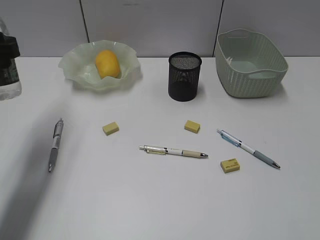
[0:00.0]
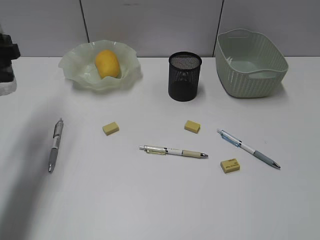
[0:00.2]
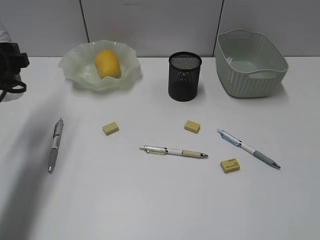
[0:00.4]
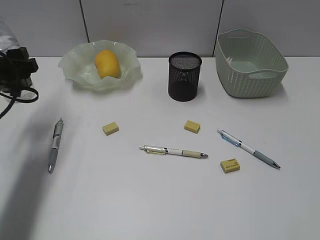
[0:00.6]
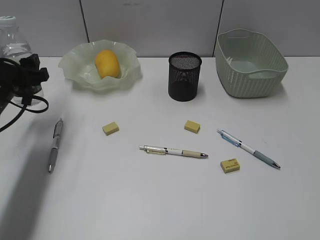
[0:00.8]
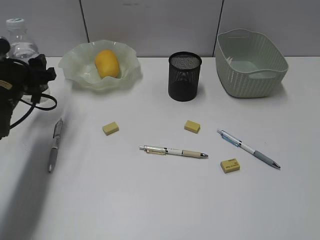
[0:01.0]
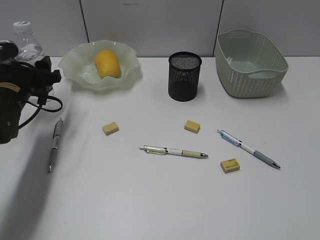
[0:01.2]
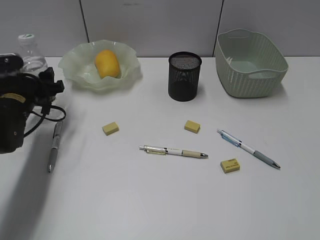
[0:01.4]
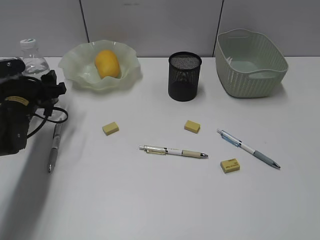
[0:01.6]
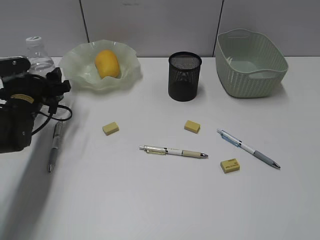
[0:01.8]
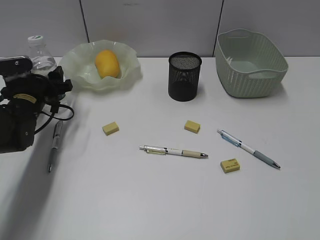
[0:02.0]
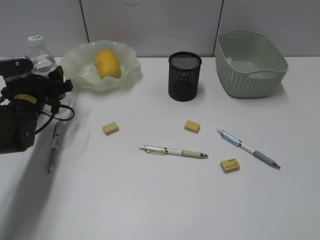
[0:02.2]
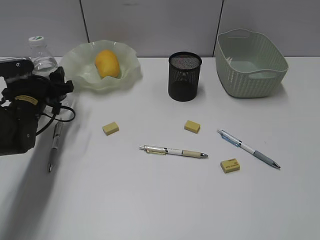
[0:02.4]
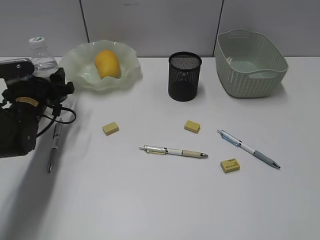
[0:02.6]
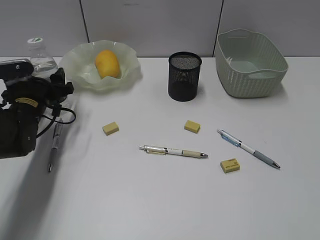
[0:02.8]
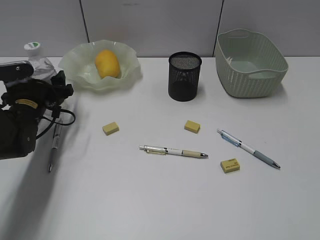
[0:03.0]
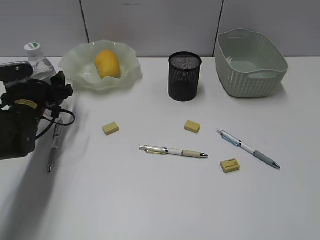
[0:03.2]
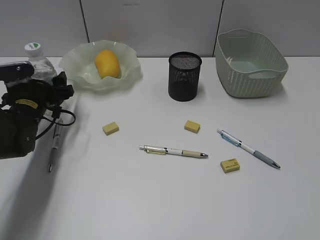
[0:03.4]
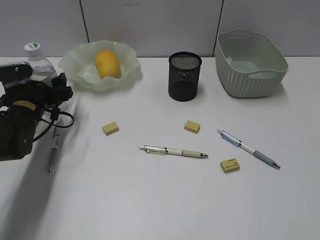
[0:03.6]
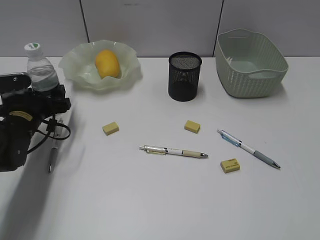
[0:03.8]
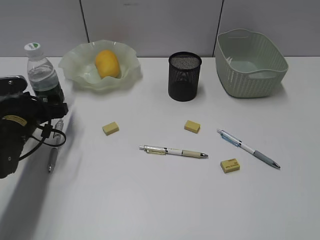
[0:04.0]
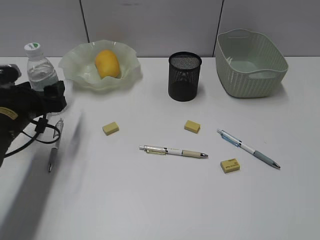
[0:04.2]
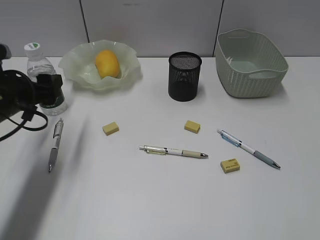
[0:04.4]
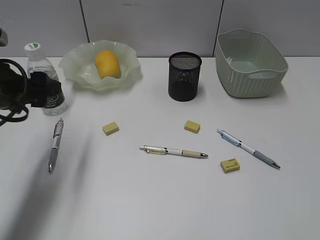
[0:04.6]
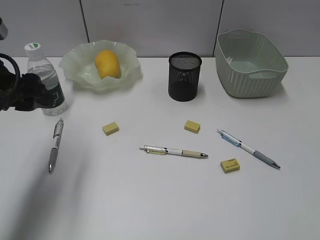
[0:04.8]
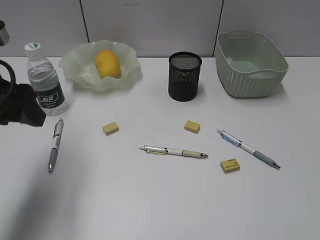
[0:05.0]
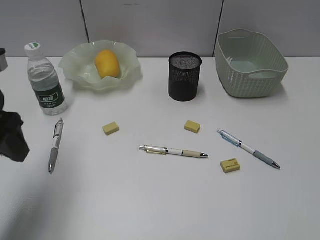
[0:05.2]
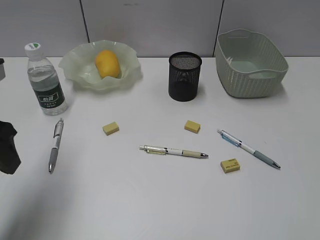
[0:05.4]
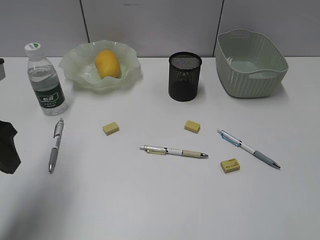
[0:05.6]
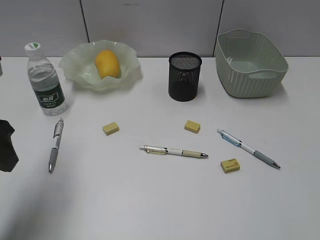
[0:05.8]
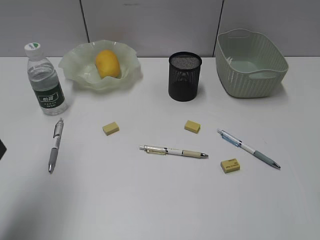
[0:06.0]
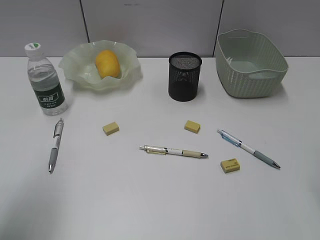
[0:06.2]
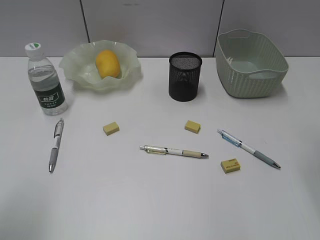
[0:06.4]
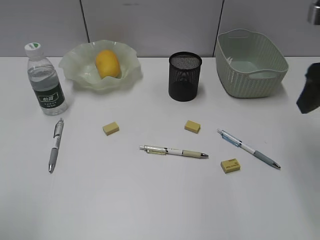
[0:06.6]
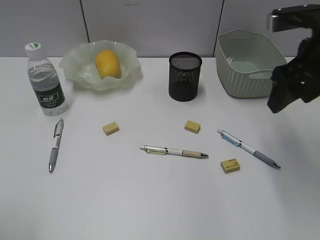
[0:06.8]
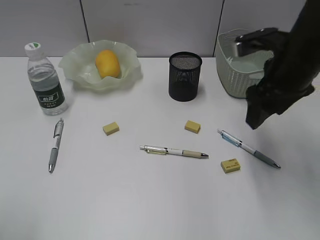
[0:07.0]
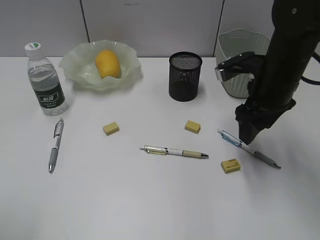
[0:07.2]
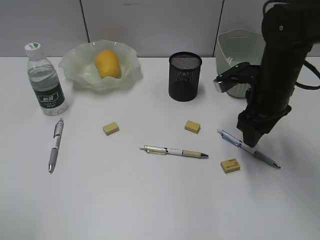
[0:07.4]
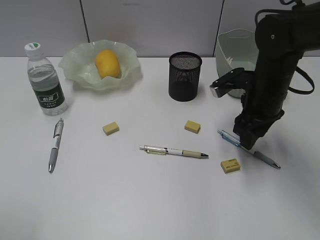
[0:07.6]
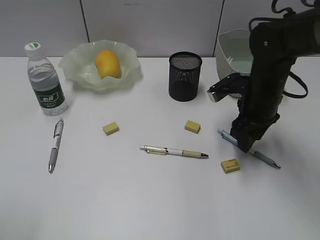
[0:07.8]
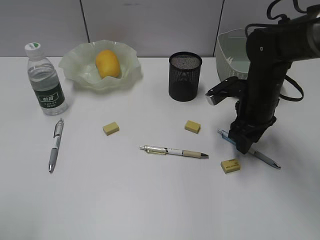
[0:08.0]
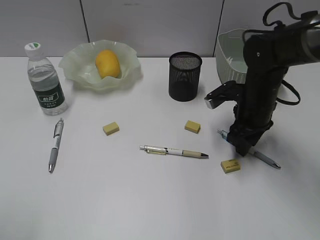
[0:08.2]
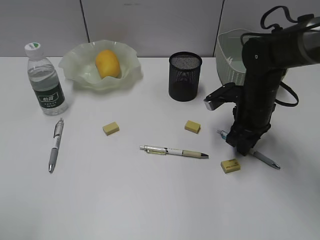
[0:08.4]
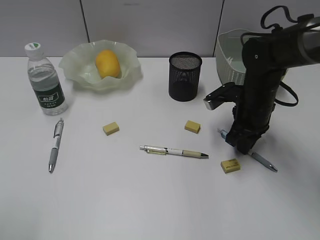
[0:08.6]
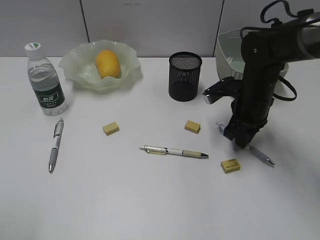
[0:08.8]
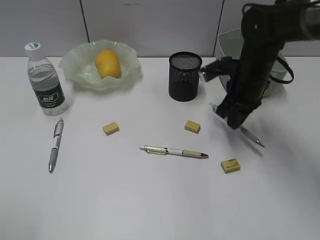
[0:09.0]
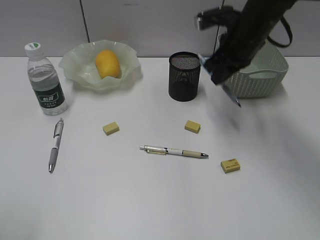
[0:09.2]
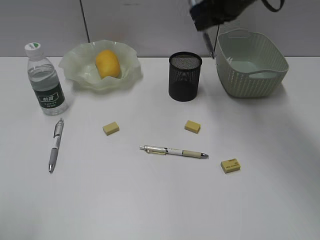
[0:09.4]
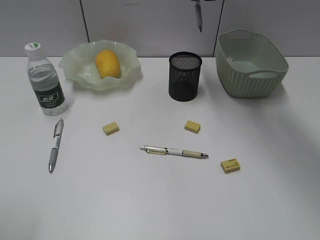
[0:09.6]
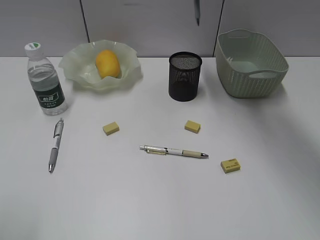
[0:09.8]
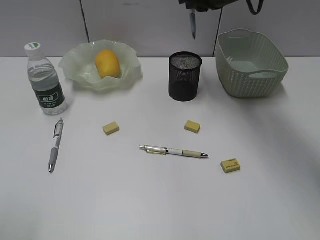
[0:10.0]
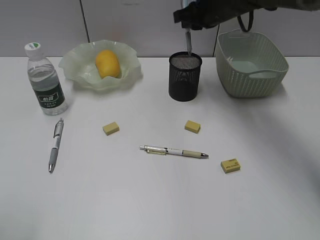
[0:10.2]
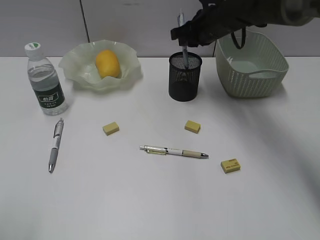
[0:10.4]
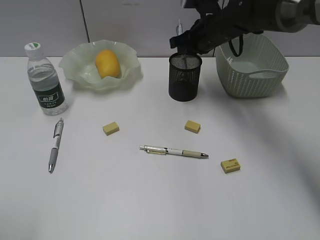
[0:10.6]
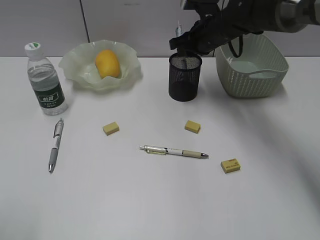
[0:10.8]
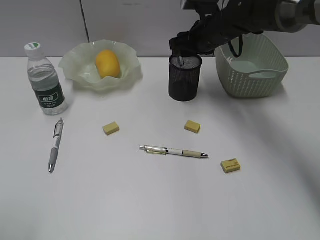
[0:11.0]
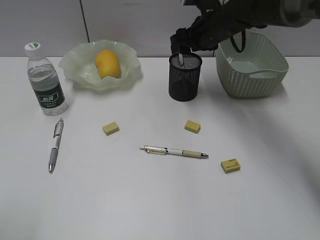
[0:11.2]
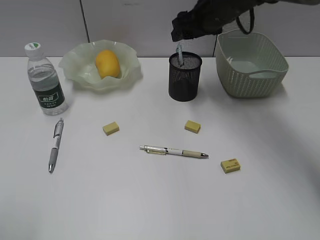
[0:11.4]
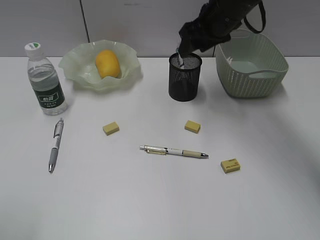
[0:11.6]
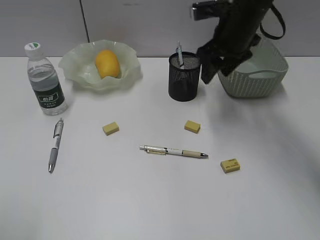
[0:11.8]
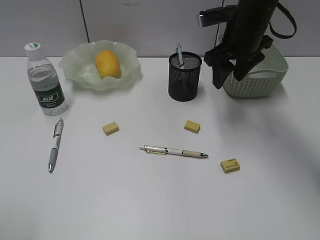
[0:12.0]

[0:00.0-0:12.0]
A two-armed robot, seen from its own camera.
Step, 0:00.0 to 0:04.0: Stand the bottle with left gripper.
Step, 0:04.2 to 0:08.6: Grasp the blue pen with right gripper.
Step, 0:08.8 to 0:11.0: Place the blue pen in pen holder with right gripper.
0:00.0 to 0:01.6: The left gripper travels downward and forward by roughly 15 cm.
0:01.6 to 0:03.0: The grippers make only small movements.
0:03.0 to 0:04.4: The left gripper travels upward and backward by roughly 10 cm.
0:04.4 to 0:06.0: The left gripper moves upward and backward, some 15 cm, and closes up.
0:06.0 to 0:07.6: The left gripper heads backward, covering roughly 15 cm, while the right gripper heads forward, downward and to the left, covering some 30 cm.
0:07.6 to 0:09.0: The right gripper closes up.
0:09.0 to 0:10.4: The right gripper heads forward and to the left, covering approximately 10 cm, and moves about 15 cm upward and comes back.
0:10.4 to 0:12.0: The right gripper goes about 5 cm backward, and opens its fingers.

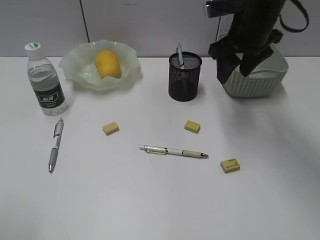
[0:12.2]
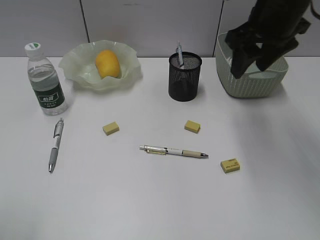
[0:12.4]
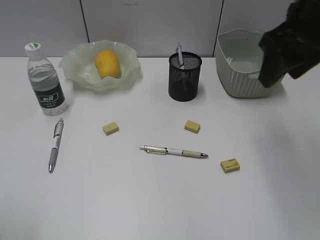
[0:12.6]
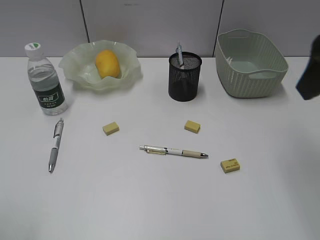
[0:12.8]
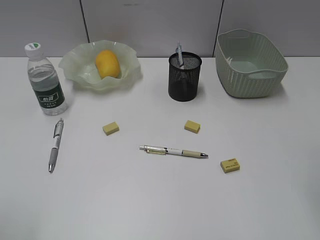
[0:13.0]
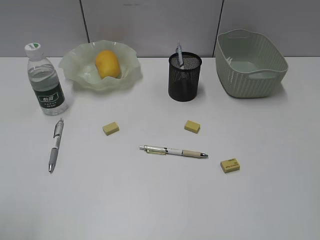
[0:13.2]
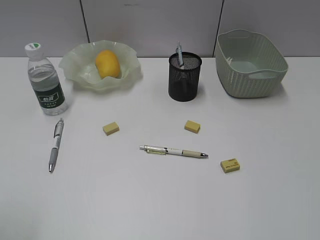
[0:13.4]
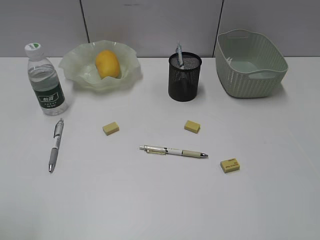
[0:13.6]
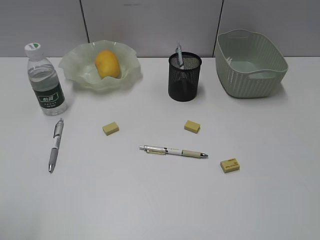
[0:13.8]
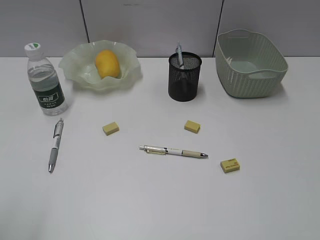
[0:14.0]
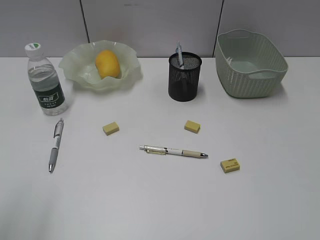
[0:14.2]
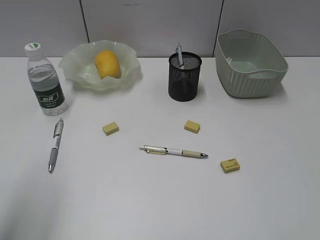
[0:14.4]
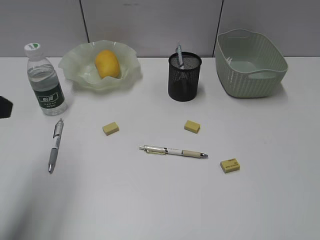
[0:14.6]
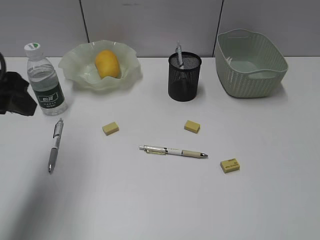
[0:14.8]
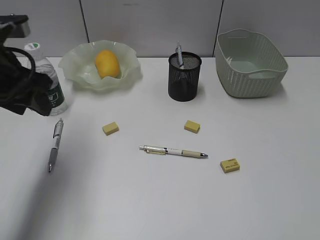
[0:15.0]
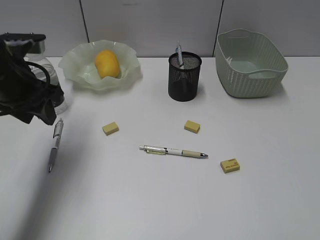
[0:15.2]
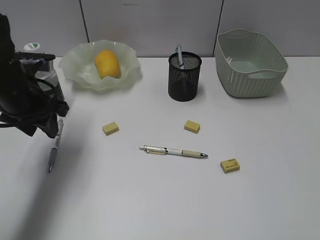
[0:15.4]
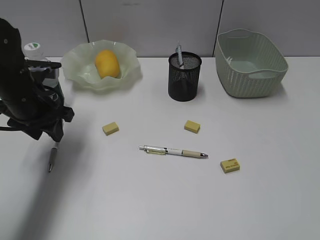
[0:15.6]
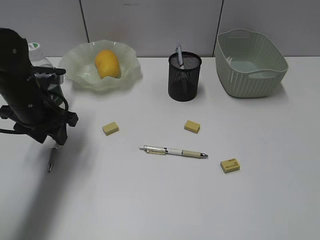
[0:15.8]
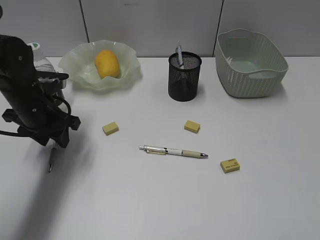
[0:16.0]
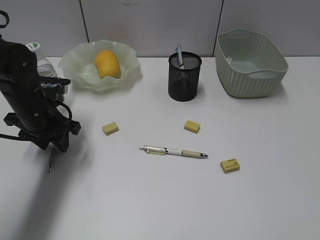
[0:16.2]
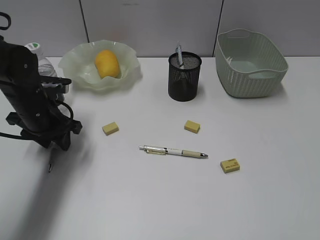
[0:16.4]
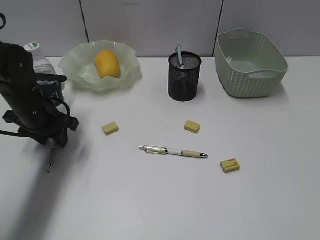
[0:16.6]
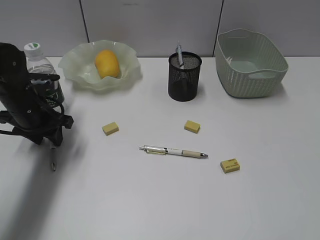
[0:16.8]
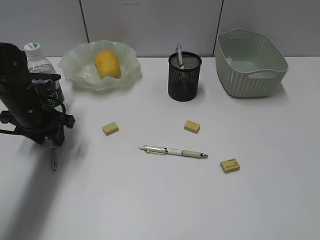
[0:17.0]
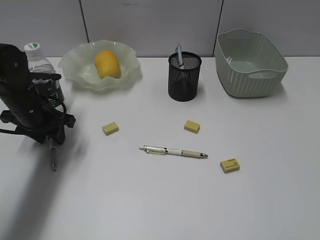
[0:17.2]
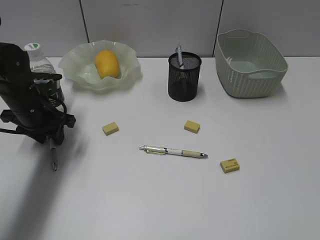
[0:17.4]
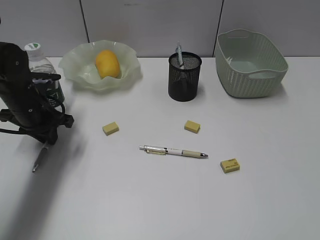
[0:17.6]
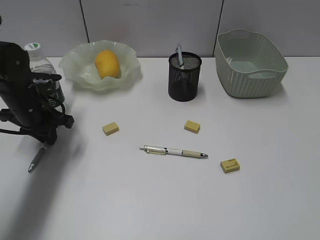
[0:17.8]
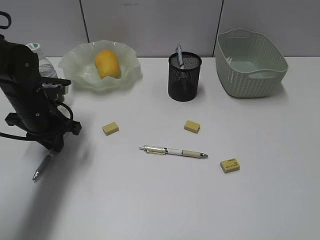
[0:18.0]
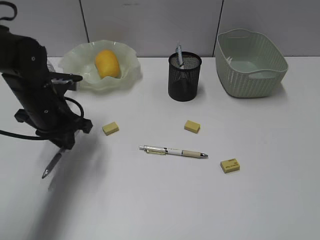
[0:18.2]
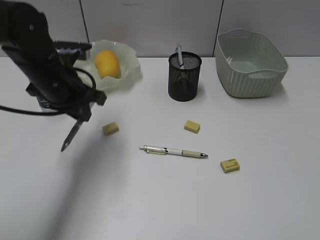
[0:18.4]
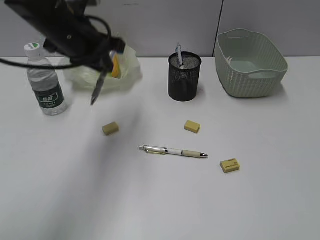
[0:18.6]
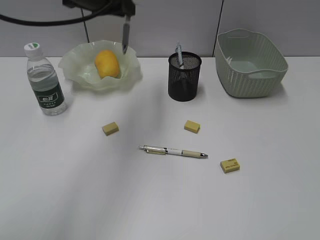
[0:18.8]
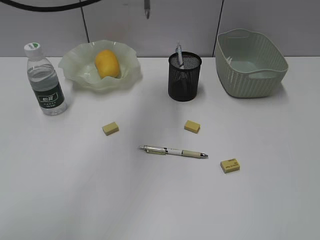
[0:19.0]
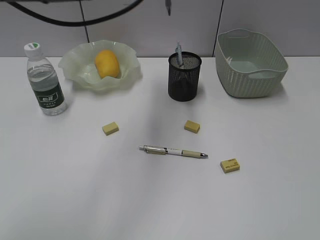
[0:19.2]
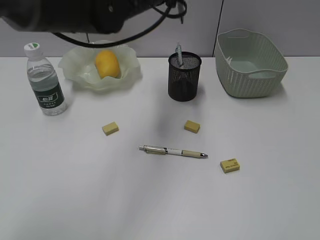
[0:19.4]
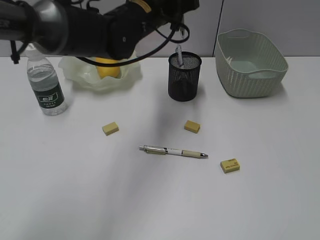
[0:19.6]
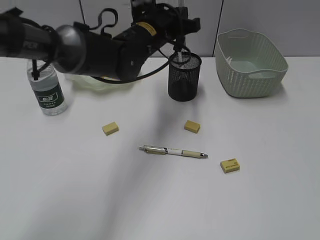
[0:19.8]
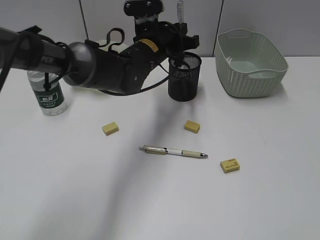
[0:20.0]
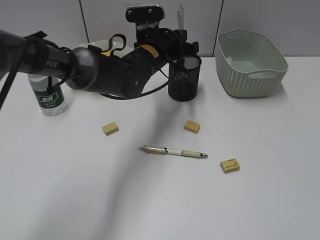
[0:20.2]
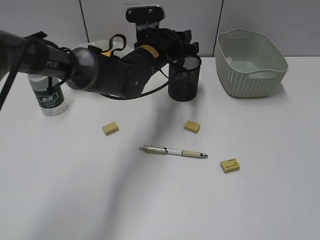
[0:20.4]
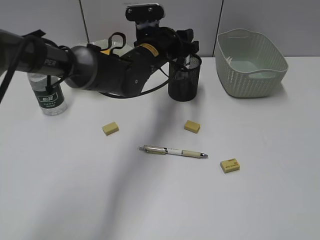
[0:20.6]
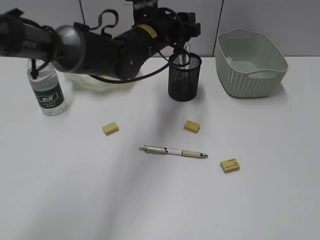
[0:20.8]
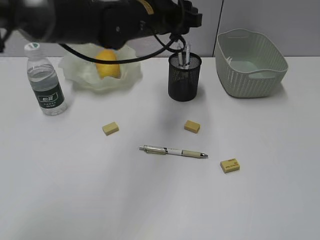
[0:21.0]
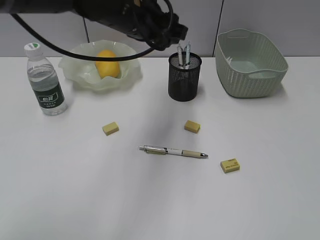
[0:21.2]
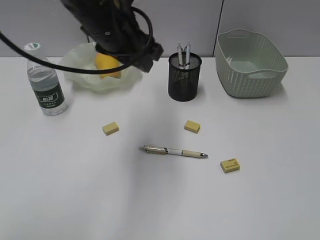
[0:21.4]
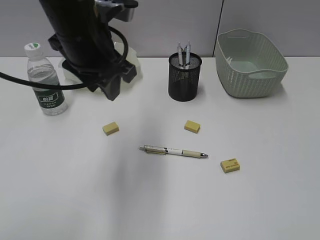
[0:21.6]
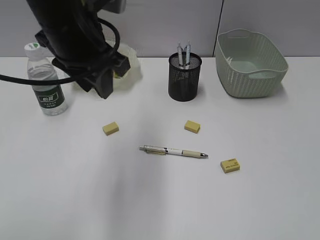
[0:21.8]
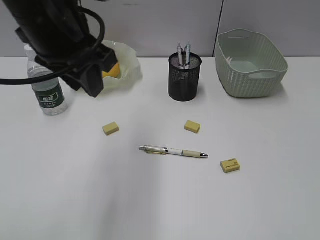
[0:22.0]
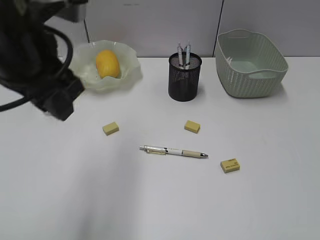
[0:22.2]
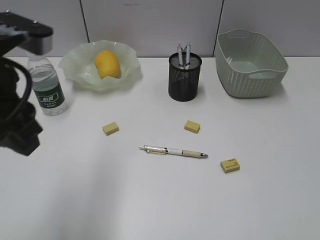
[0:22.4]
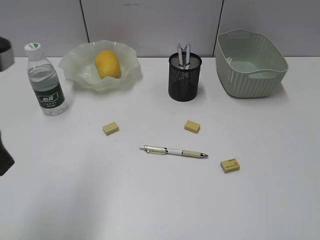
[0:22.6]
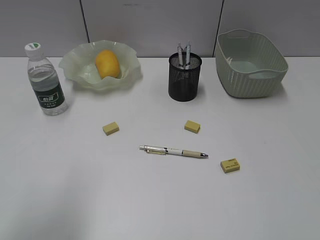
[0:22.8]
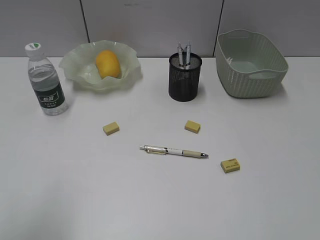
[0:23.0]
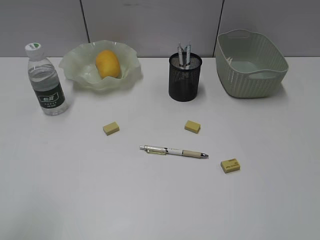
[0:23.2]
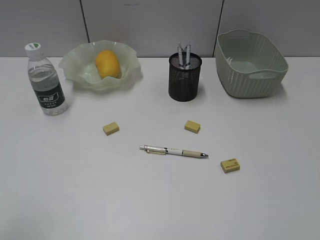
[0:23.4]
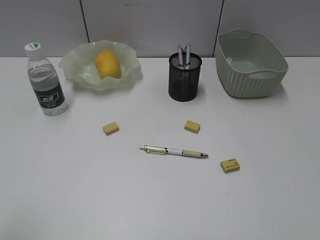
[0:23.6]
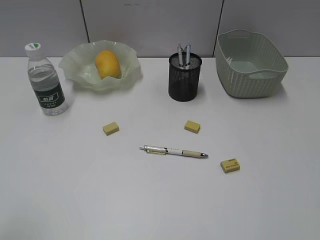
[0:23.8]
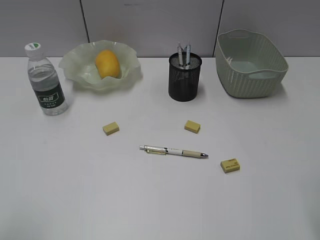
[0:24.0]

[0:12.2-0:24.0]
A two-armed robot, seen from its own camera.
Step, 0:12.2 to 0:17.8: Grasp the gray pen with left gripper.
Step, 0:18.0 to 0:20.4: Place the gray pen in pen holder with left gripper.
0:12.2 to 0:13.6: The right gripper travels backward by some 35 cm.
0:13.6 to 0:15.2: The left gripper moves forward, about 25 cm.
0:15.2 to 0:16.6: The left gripper shifts some 10 cm downward.
0:16.6 to 0:18.2: The left gripper moves approximately 5 cm, and closes up.
0:18.2 to 0:19.6: The left gripper travels to the right, upward and forward by about 20 cm.
0:19.6 to 0:21.0: The left gripper goes downward and returns, approximately 10 cm each way, and opens its fingers.
0:21.0 to 0:22.6: The left gripper goes about 30 cm backward and to the left.
0:22.6 to 0:24.0: The left gripper is displaced backward and to the left by approximately 15 cm.
